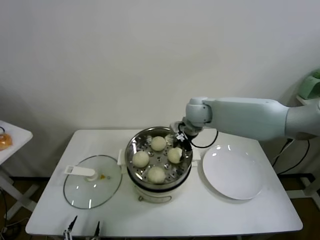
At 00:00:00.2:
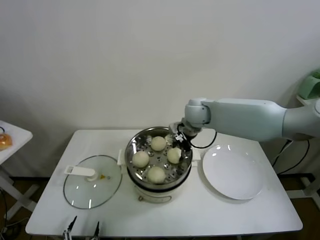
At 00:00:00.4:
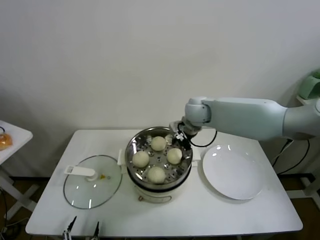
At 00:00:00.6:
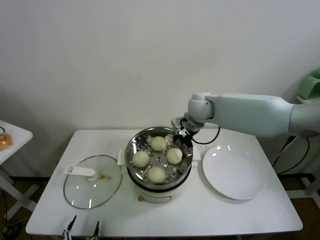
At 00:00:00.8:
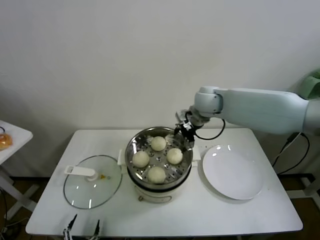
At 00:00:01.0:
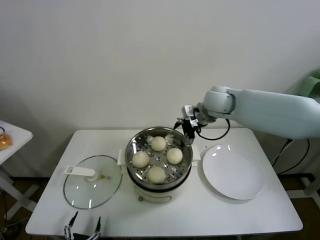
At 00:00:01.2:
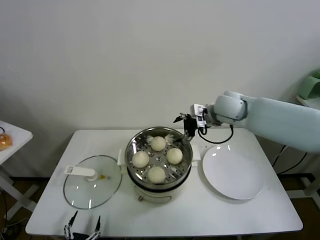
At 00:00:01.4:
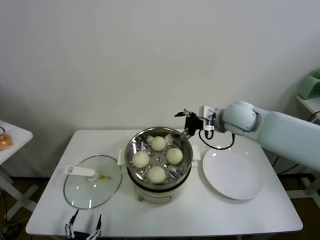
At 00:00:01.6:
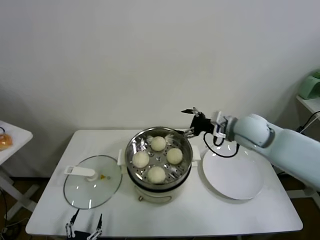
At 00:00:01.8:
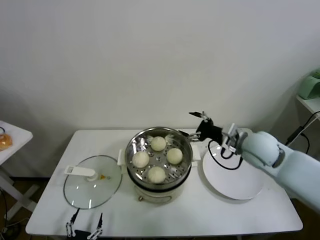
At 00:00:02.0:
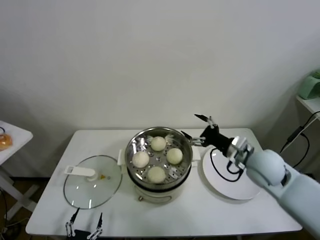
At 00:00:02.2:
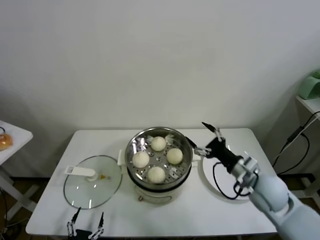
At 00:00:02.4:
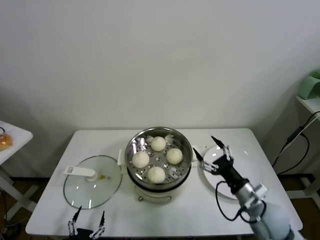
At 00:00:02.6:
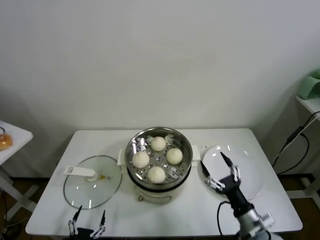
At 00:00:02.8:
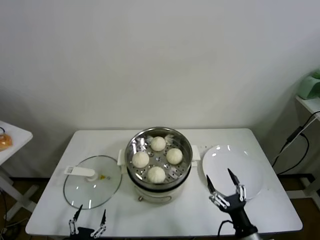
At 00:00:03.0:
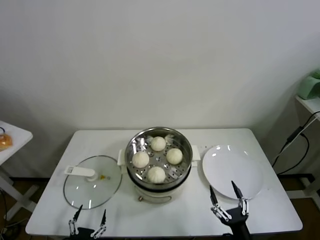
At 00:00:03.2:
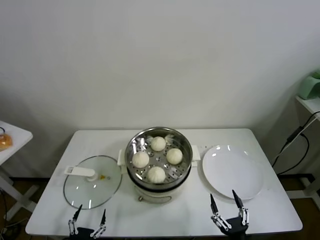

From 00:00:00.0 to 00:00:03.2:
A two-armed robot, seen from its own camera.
Task of the whole recording: take steamed baozi put them in steamer.
From 00:00:00.0 to 00:00:01.6: The right gripper is displaced to the right and backward by some 15 cm, and opens its fingers.
From 00:00:01.6 to 00:00:03.2: The right gripper moves backward and downward, roughly 50 cm.
